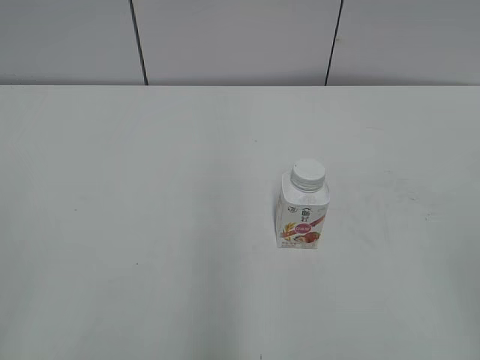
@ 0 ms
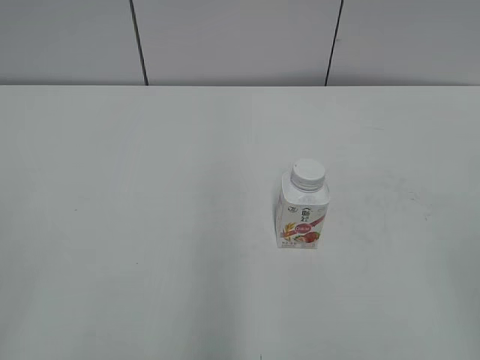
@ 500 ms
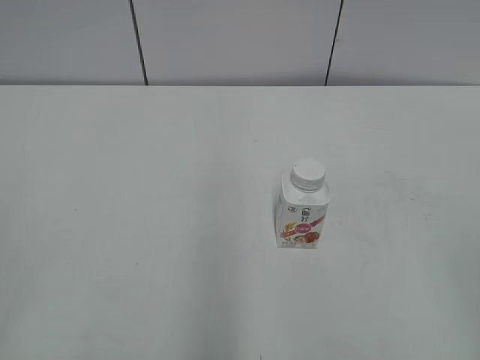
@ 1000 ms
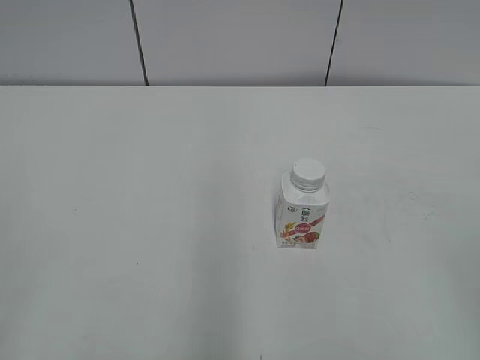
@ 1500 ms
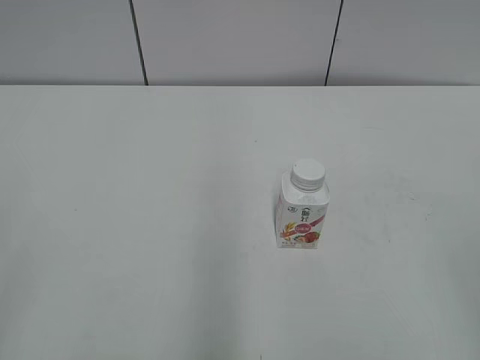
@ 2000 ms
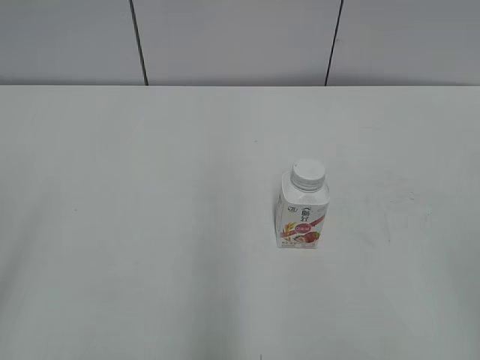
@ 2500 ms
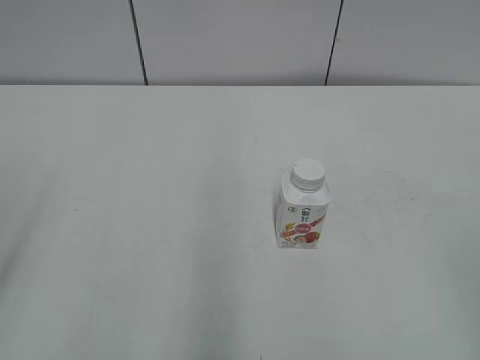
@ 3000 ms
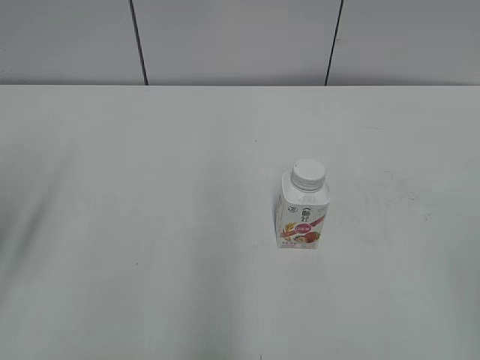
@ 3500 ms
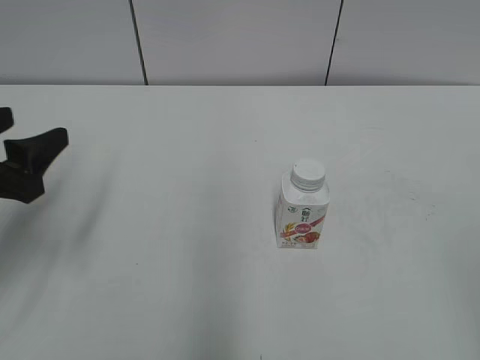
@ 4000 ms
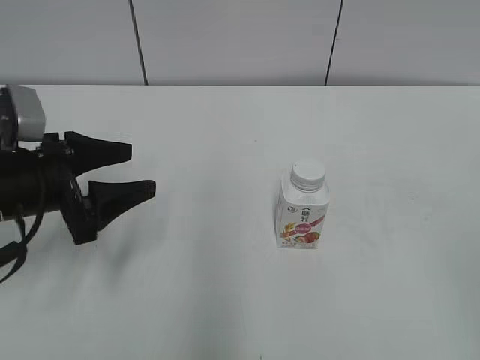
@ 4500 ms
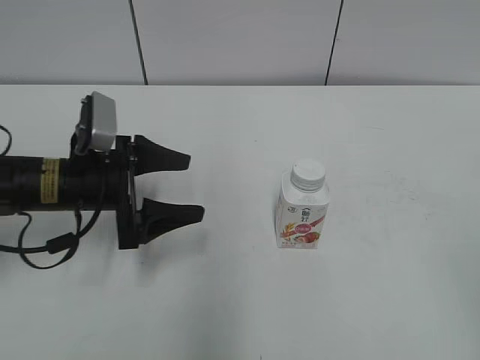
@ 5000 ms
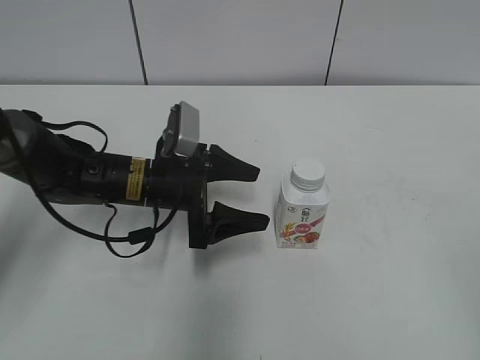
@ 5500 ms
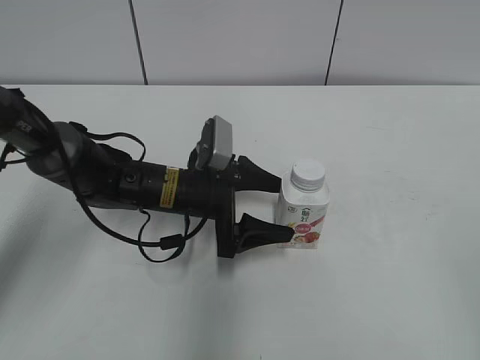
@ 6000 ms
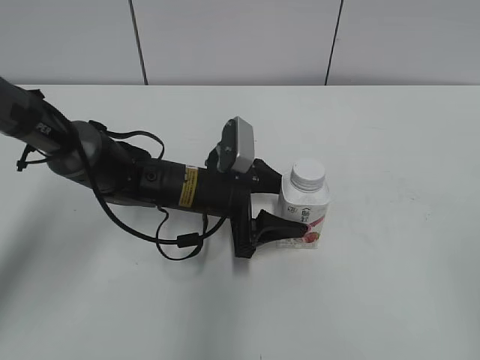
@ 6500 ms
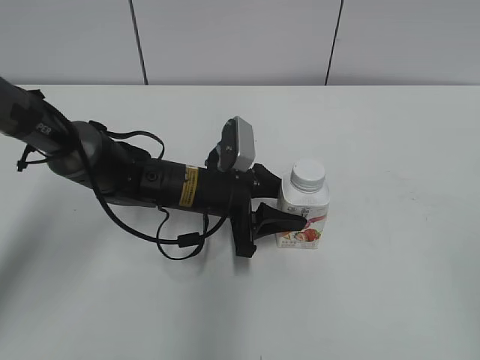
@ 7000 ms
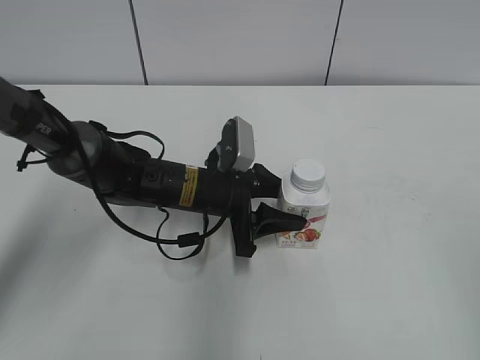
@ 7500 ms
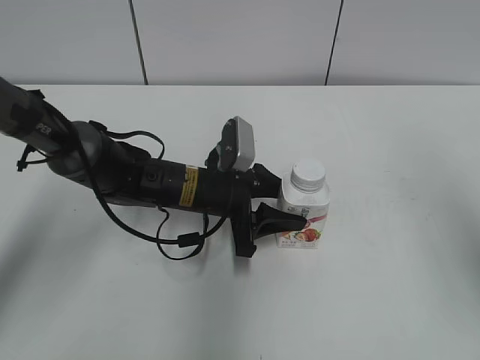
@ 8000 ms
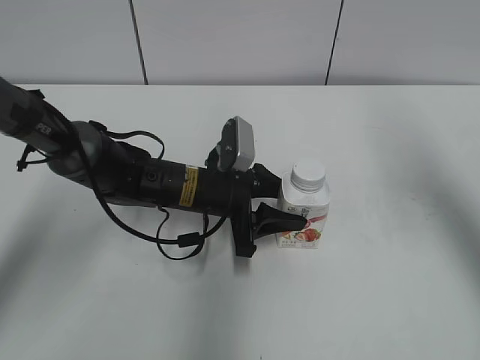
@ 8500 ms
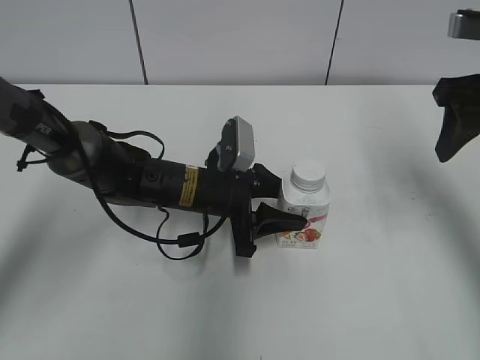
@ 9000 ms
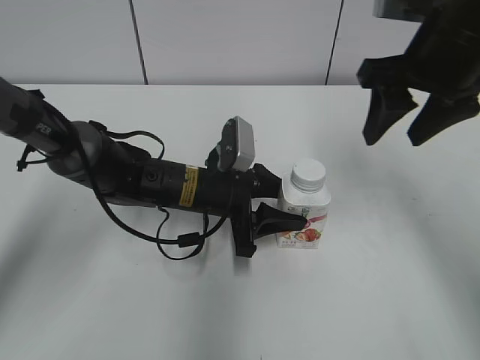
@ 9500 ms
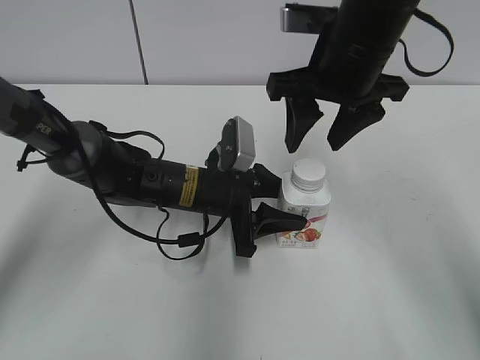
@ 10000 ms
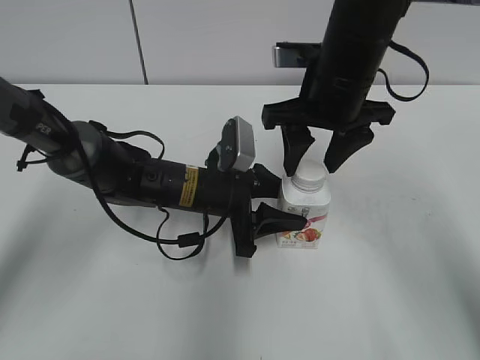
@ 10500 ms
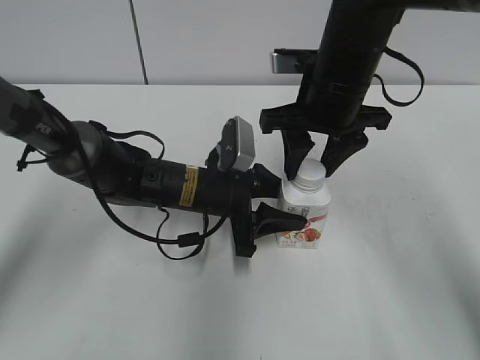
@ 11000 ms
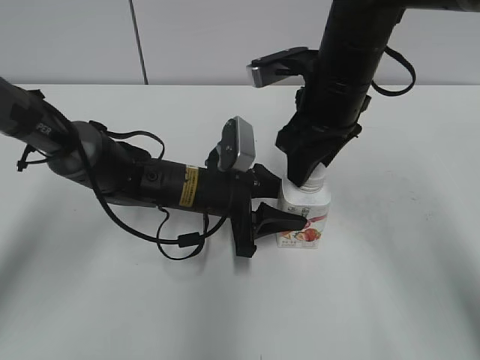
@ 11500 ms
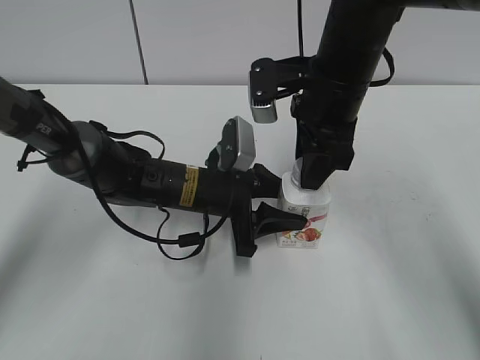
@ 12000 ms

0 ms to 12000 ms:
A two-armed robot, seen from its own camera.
Step, 0 ms to 6500 ms: Grab the Yili Changqing with the left hand.
Step, 7000 ms to 12000 ms: Twist the bottle cap with the right hand.
2000 ms to 4000 ms: The left gripper is displaced forward and downward by approximately 25 cm, and opens up.
4000 ms to 6000 ms: The left gripper goes approximately 25 cm to the right, downward and forward.
6000 ms to 8000 ms: The left gripper closes its fingers, while the right gripper heads forward and upward, covering roughly 15 cm.
8000 ms to 10000 ms: The right gripper shifts some 25 cm forward and to the left.
10000 ms to 12000 ms: The right gripper closes its fingers.

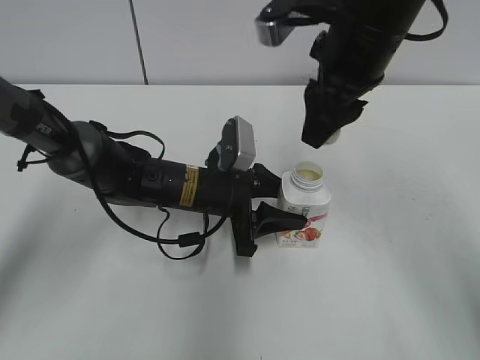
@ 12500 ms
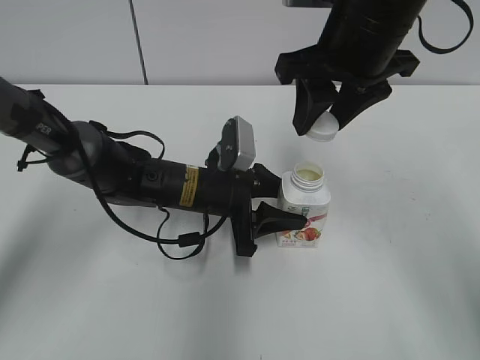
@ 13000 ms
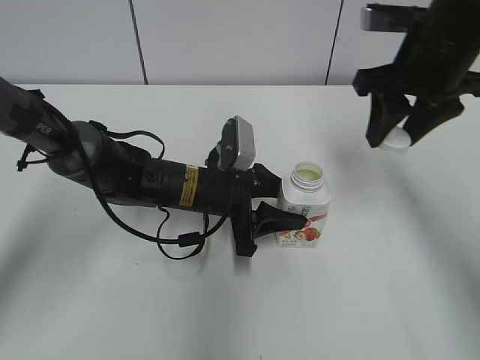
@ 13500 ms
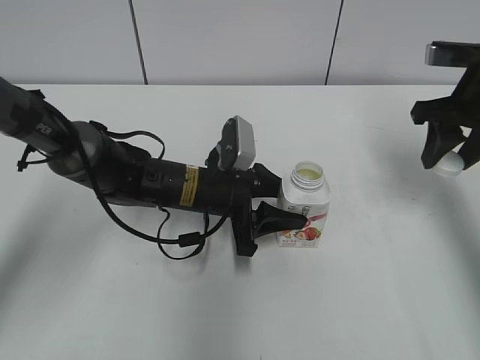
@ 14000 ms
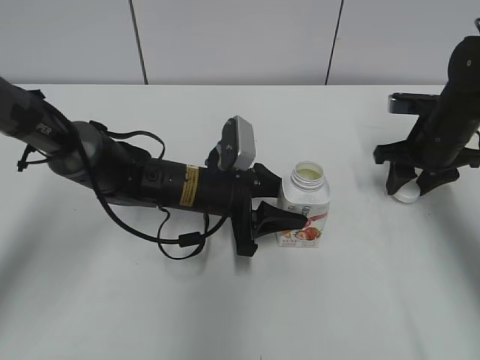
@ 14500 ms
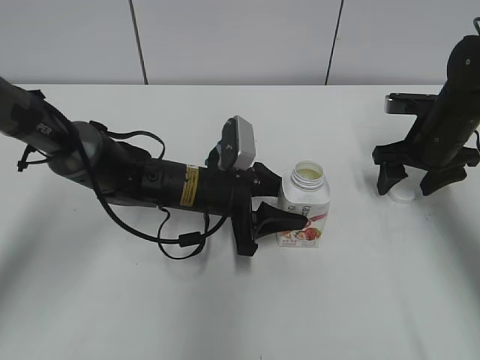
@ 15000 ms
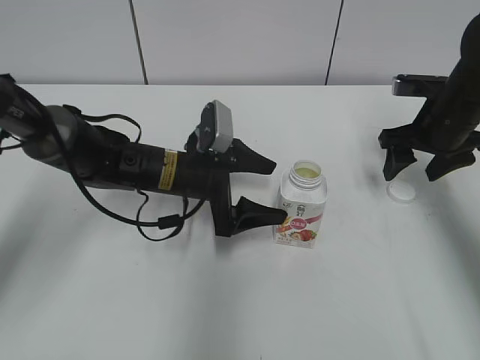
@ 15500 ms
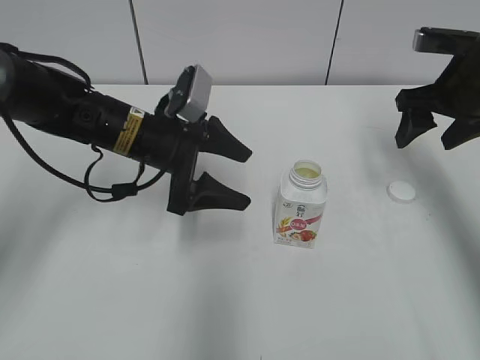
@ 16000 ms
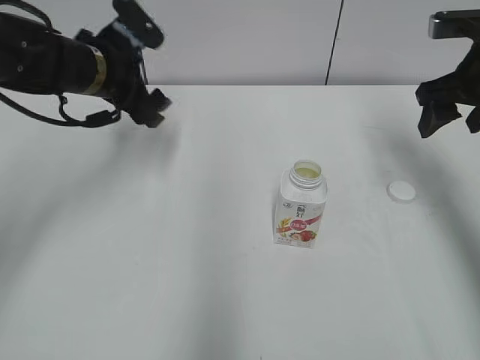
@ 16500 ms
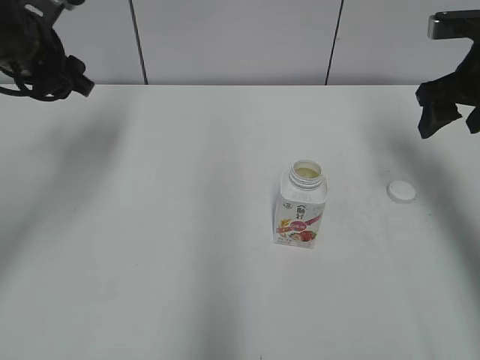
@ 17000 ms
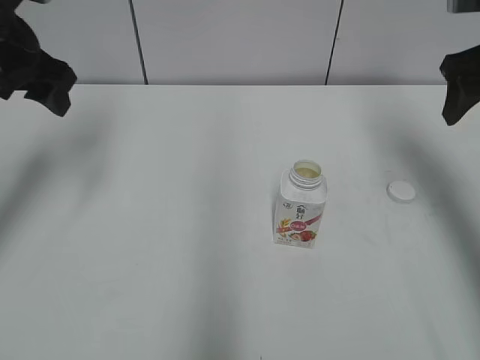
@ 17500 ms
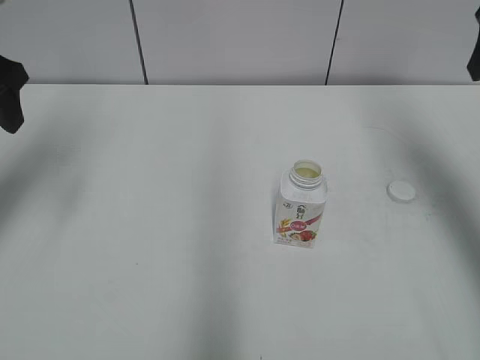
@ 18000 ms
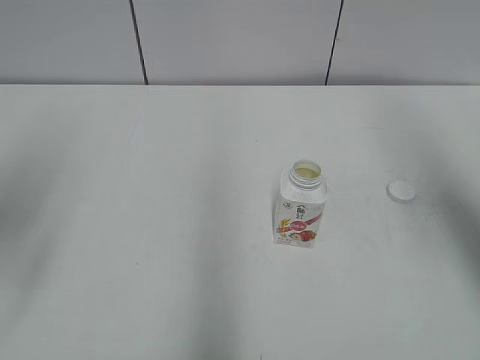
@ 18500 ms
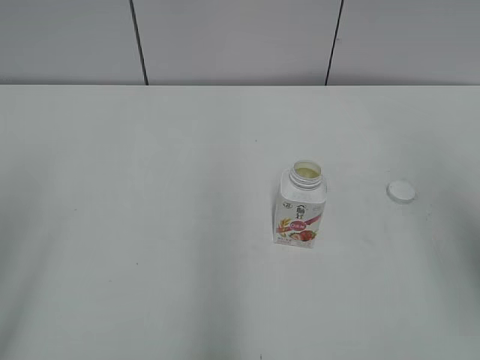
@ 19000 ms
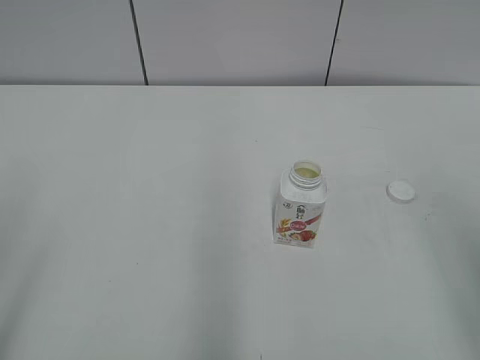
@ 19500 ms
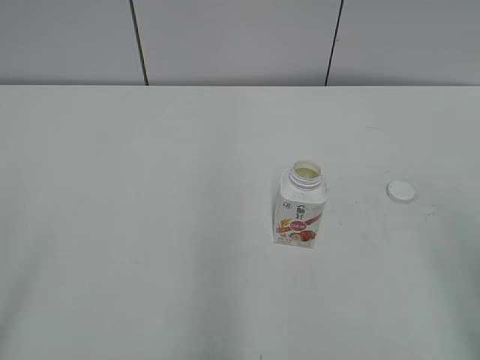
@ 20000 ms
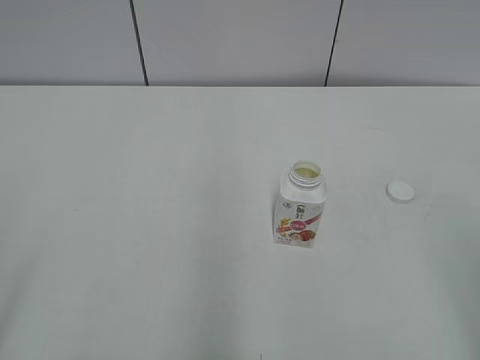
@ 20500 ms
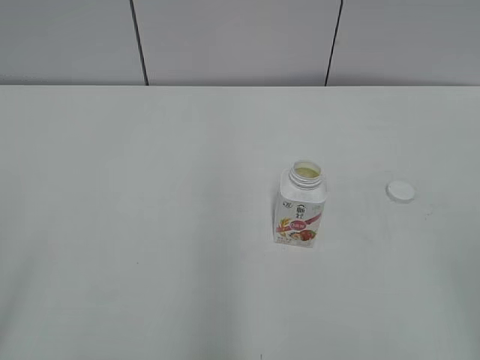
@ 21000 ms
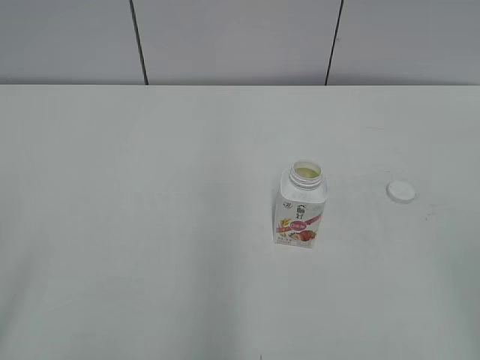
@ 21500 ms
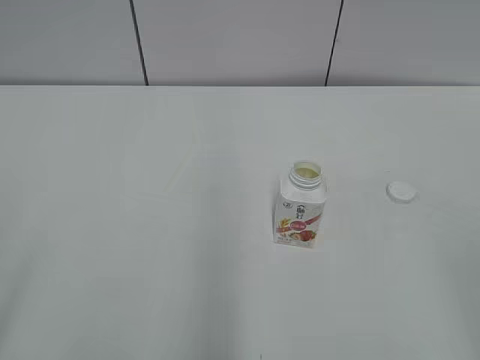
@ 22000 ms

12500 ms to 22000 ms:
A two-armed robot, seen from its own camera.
Step, 12500 ms to 14500 ms: Place the bottle cap on the right.
12500 ms to 14500 ms: The right gripper goes about 25 cm downward, to the right and forward.
14500 ms to 16500 ms: The left gripper travels upward, to the left and forward by approximately 20 cm, and opens up. The right gripper is displaced upward by roughly 10 cm, and opens its fingers.
16500 ms to 18000 ms: The right gripper shifts roughly 10 cm upward. The left gripper travels to the left, upward and backward by some 20 cm.
18000 ms to 20000 ms: Both grippers travel together backward, some 30 cm.

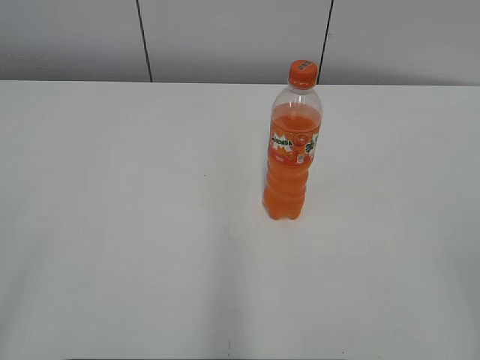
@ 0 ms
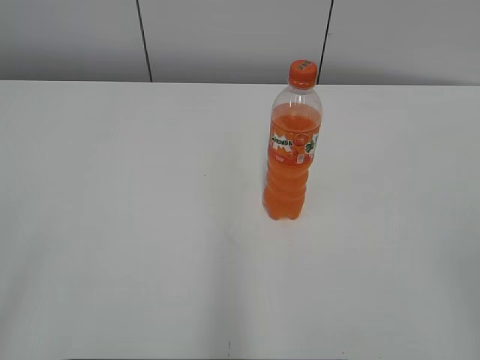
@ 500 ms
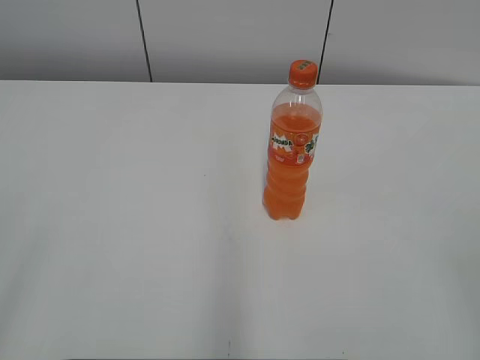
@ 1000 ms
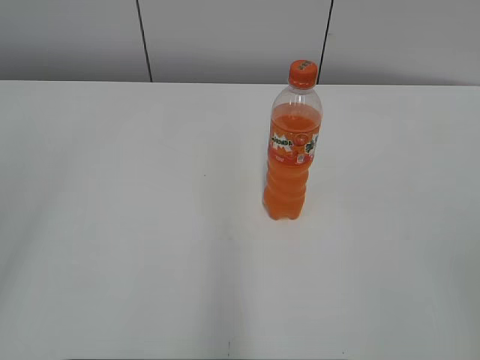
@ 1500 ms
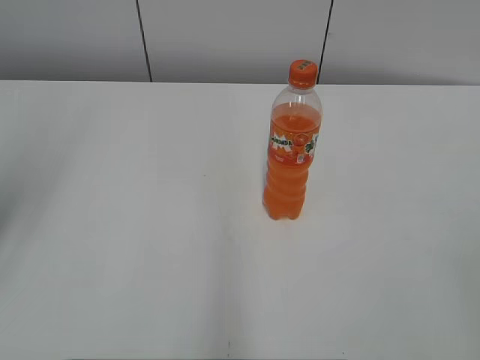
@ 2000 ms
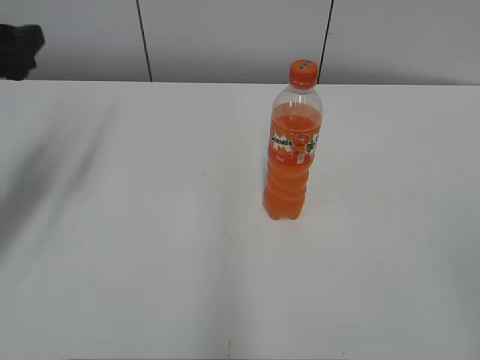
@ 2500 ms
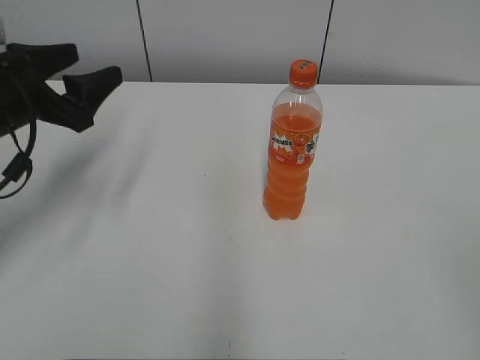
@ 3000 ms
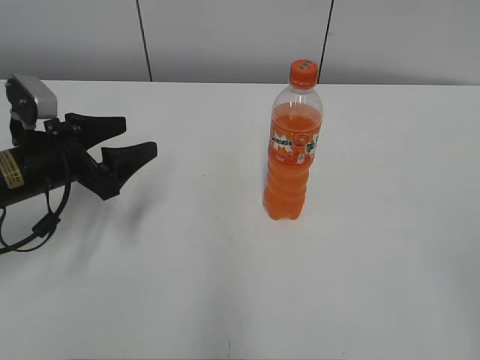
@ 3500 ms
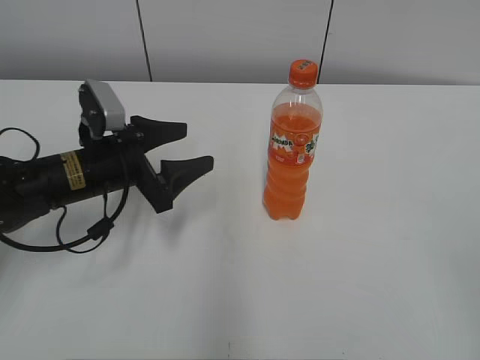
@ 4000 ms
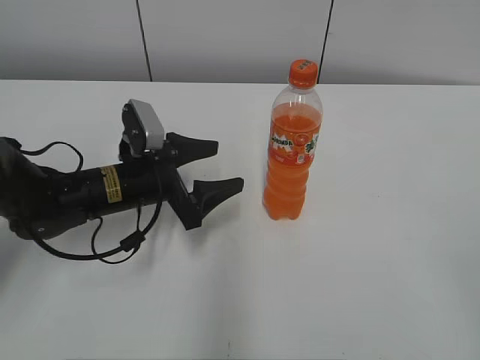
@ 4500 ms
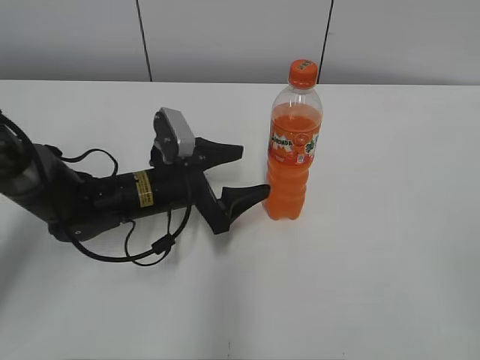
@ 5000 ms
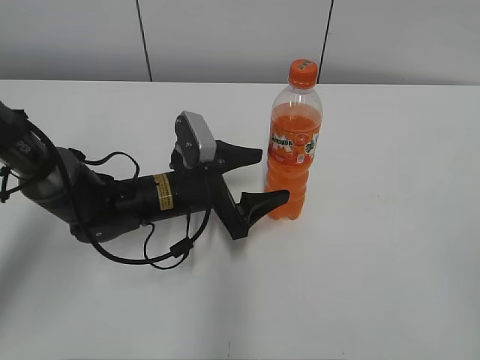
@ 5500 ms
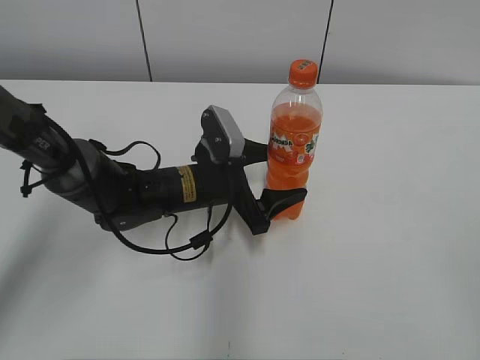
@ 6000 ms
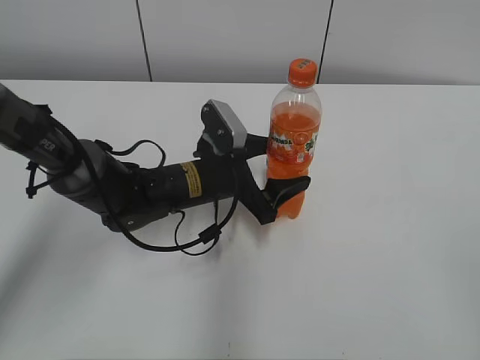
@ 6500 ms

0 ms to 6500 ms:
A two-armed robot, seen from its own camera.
2000 ms to 4500 ms: The left gripper travels downward, to the right and forward by some 35 cm.
4500 ms to 6500 ms: The left gripper moves to the right, roughly 10 cm.
